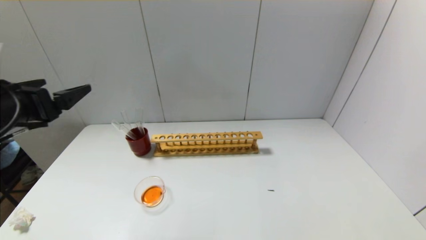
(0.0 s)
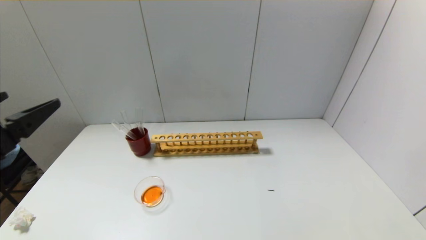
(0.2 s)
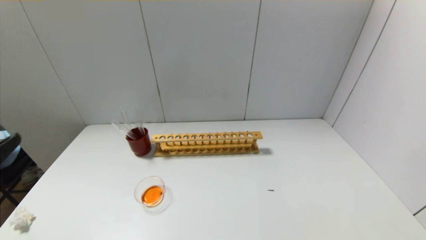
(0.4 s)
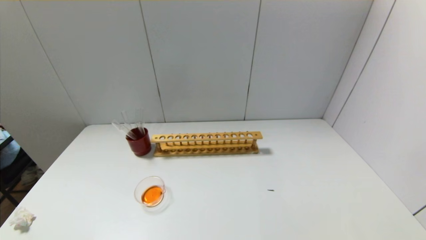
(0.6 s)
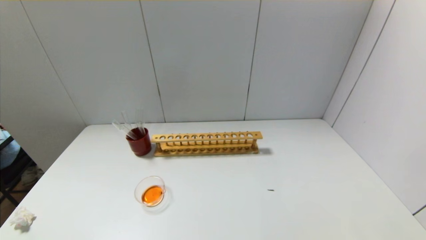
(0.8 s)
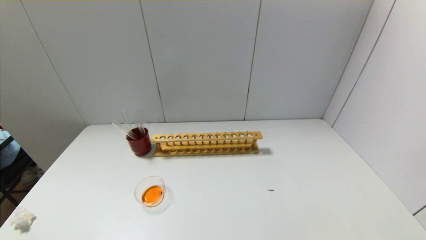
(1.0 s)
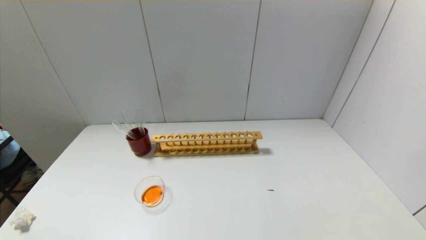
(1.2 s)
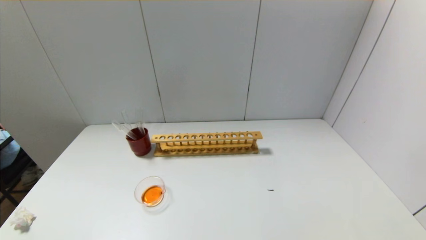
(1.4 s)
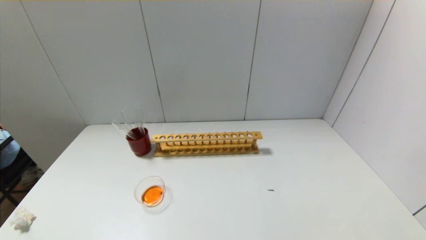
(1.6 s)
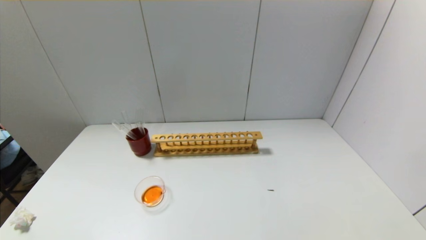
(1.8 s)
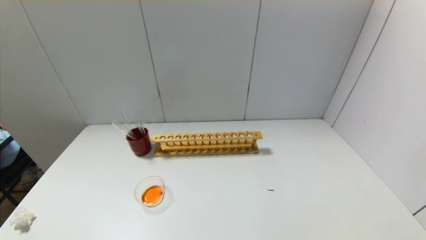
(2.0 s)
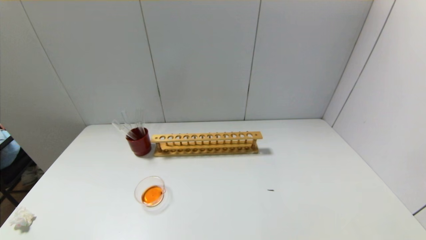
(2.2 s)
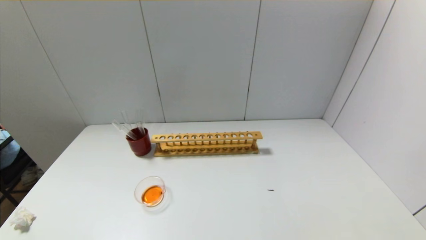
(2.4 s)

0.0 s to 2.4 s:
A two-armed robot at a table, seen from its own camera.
0.0 to 1.2 s: The left gripper travels backward and downward by some 30 cm.

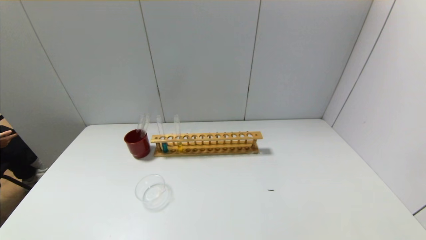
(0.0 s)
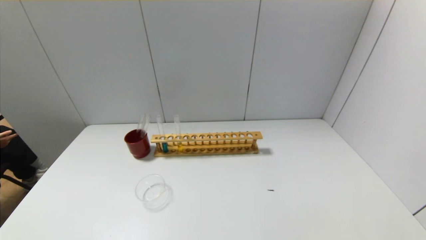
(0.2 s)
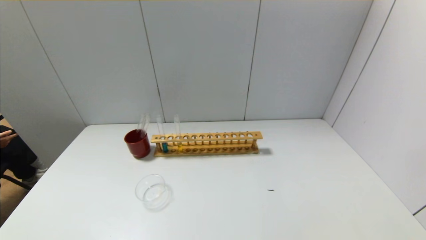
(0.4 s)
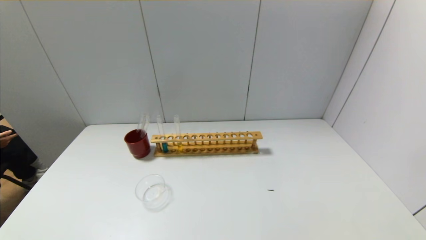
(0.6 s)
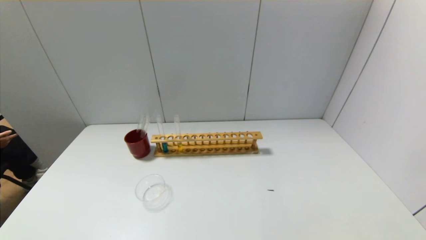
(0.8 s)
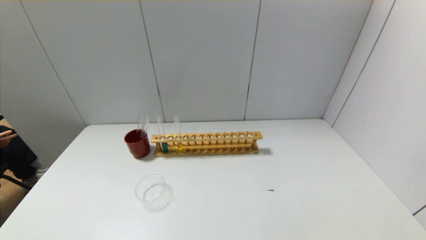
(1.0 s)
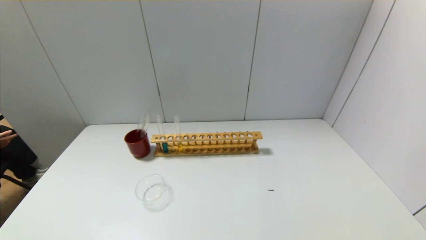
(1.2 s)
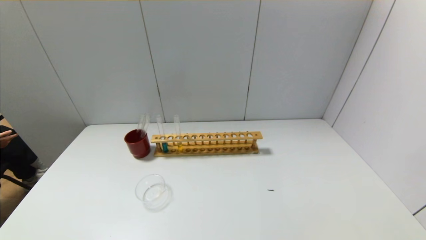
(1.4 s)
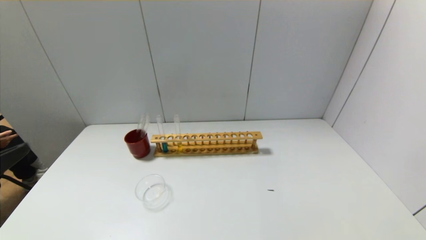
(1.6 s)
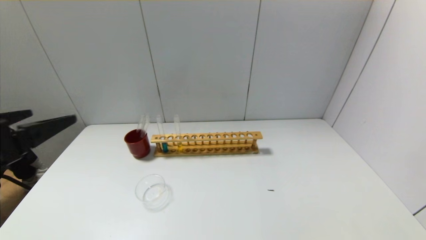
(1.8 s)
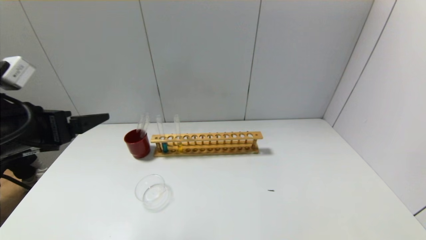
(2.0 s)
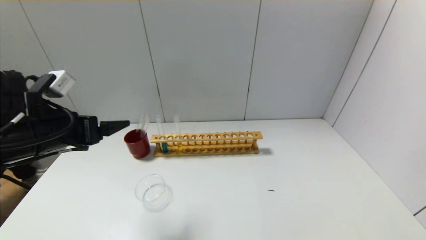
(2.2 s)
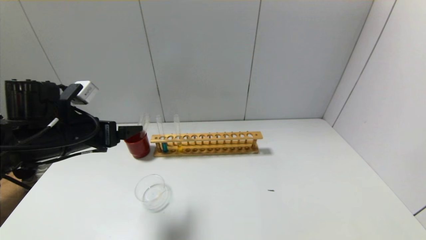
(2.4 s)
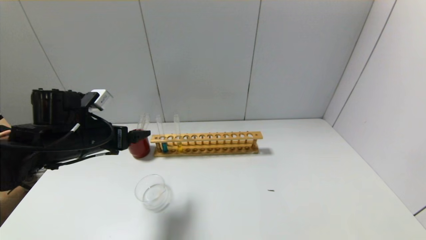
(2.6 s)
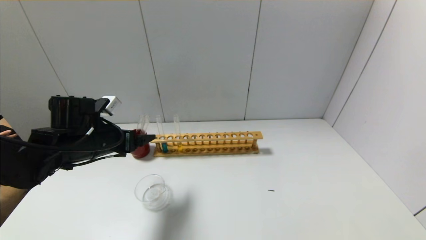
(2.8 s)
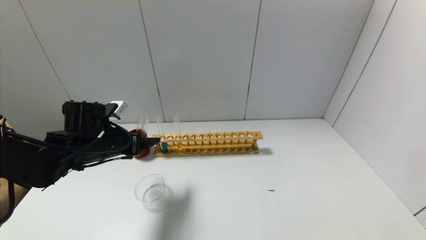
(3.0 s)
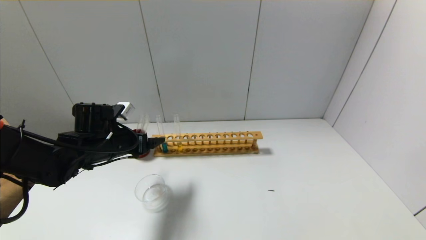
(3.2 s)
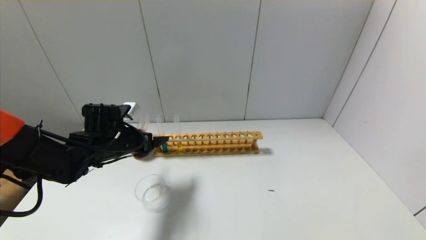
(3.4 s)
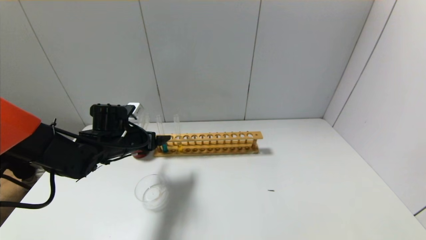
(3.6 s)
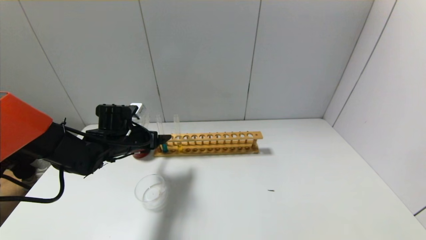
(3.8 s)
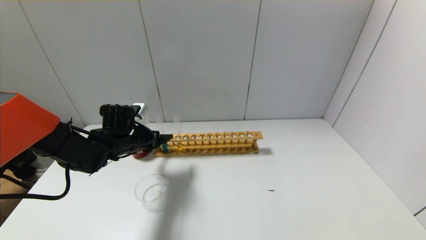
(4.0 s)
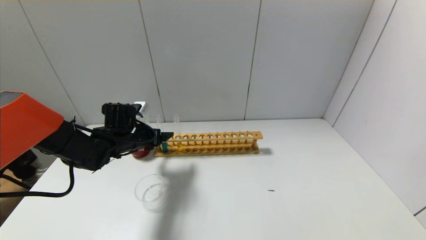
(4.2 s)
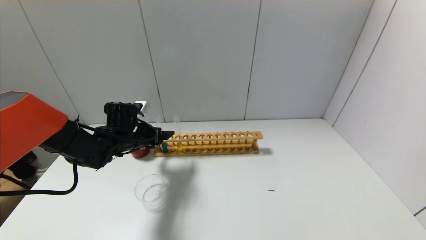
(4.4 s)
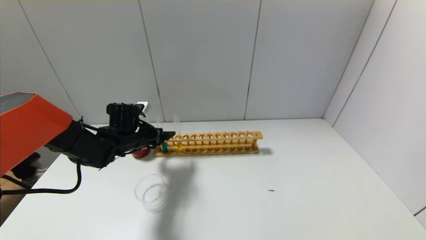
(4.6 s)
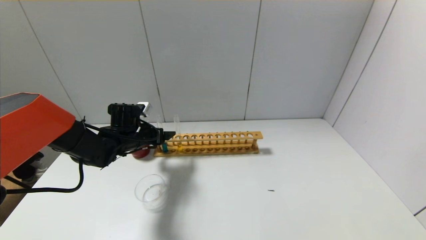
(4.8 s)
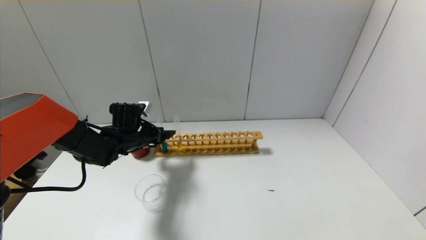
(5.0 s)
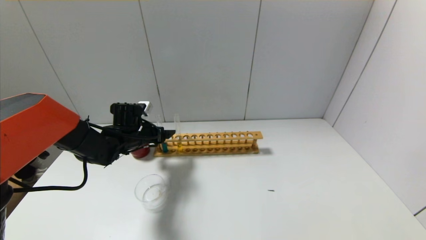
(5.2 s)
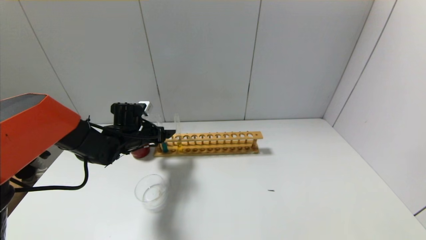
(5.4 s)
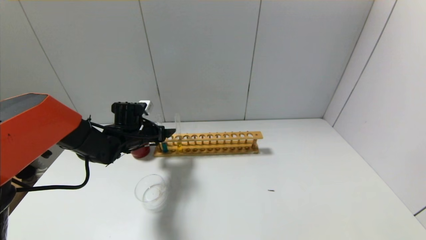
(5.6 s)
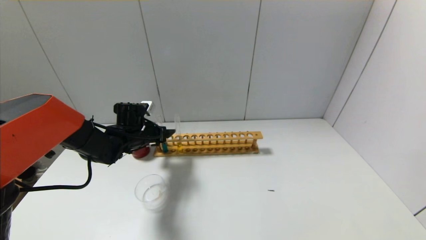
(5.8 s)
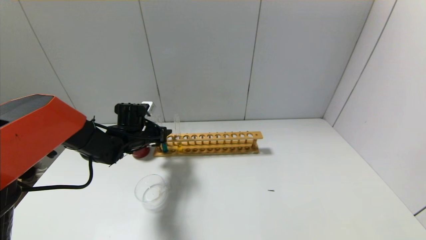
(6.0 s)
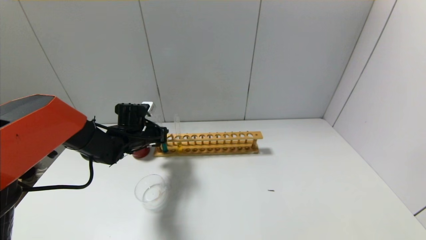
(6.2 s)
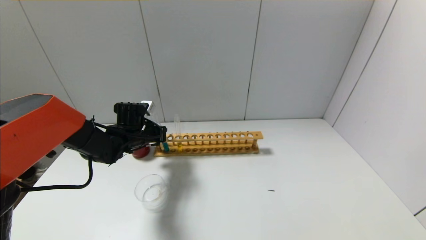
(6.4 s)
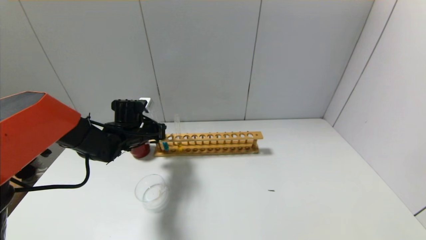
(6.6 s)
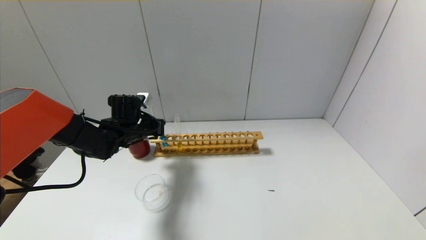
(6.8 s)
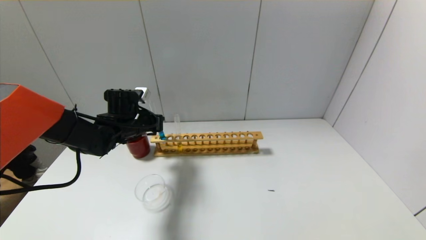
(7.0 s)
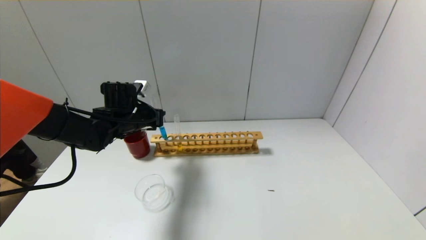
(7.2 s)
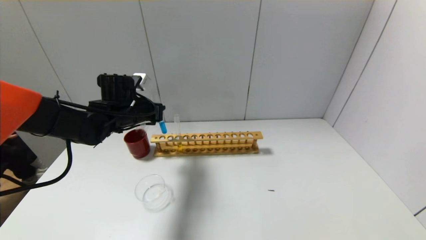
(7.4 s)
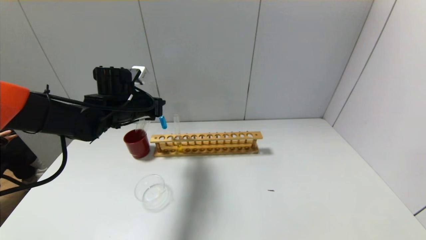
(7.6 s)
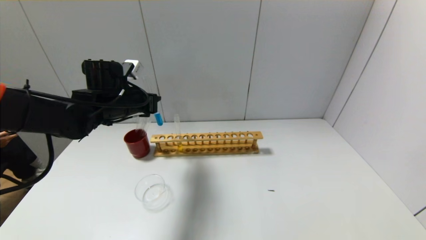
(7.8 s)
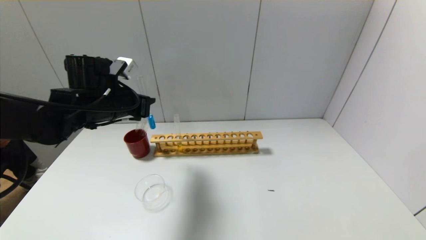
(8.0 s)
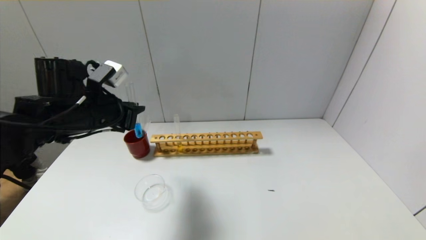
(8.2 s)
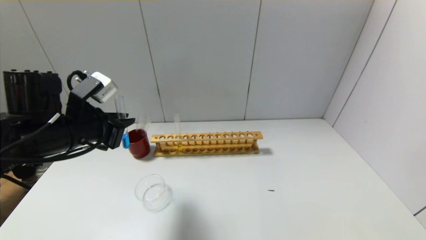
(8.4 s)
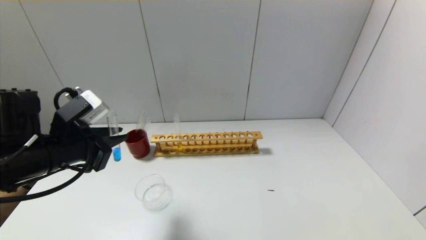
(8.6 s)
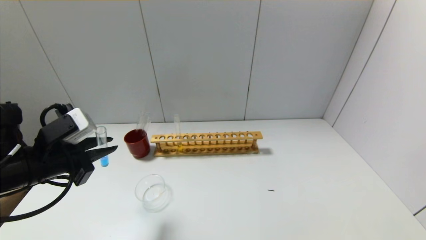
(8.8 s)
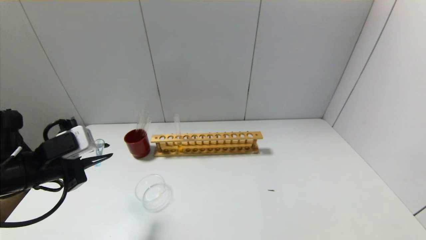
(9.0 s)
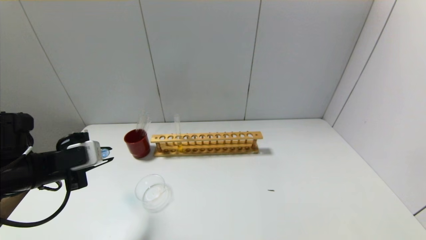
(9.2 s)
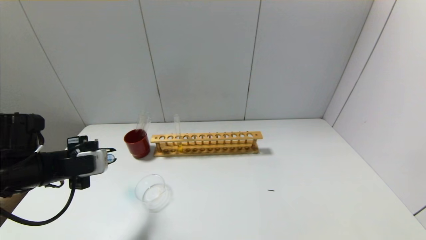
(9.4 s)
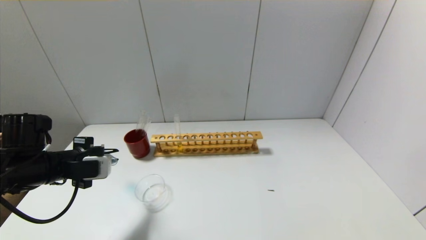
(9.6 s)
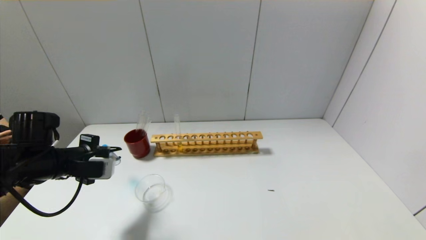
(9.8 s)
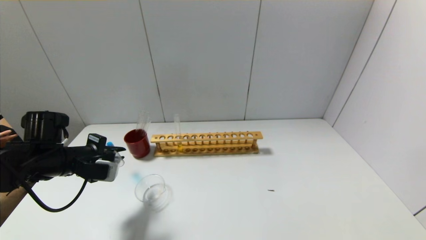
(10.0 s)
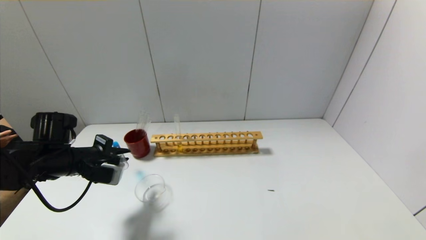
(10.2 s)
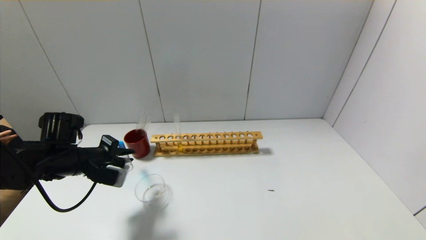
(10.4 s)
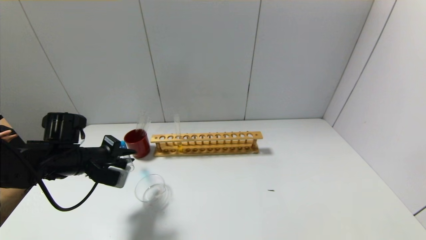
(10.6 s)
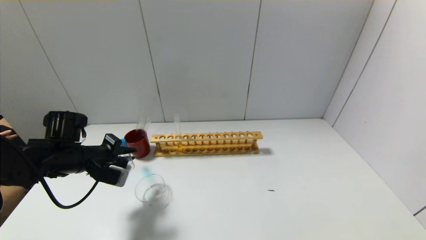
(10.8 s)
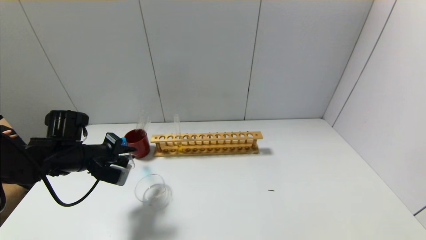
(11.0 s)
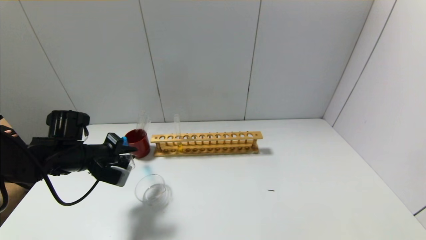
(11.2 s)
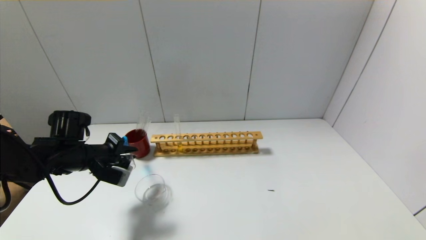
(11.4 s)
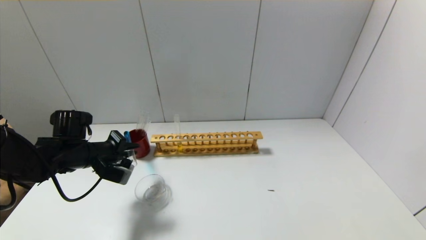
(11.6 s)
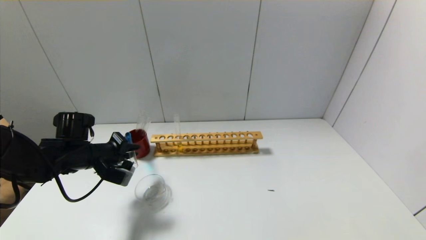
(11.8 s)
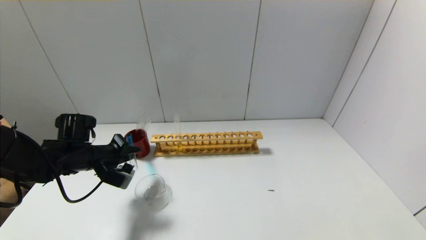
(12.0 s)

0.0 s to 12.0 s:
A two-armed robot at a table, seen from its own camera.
Step, 0.0 to 6.2 s: Grasp the blue reagent with the left gripper.
1.6 to 3.0 s: The left gripper moves forward and downward, approximately 25 cm.
3.0 to 4.4 s: The left gripper goes about 10 cm forward.
4.4 to 6.0 s: The left gripper closes its fingers.
6.0 to 7.6 s: The left gripper travels upward by roughly 10 cm, and closes up.
7.6 to 9.0 s: The left gripper heads backward and to the left, covering approximately 20 cm.
9.0 to 10.4 s: The left gripper moves forward and downward, some 10 cm.
10.4 to 12.0 s: The grippers move only a little.

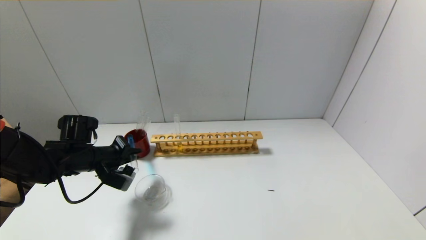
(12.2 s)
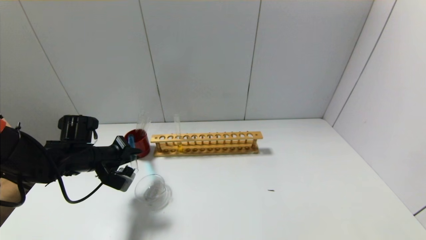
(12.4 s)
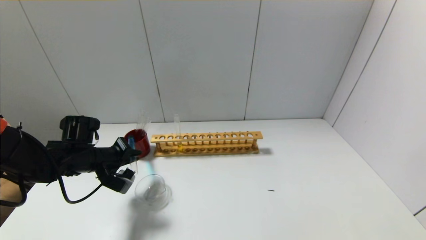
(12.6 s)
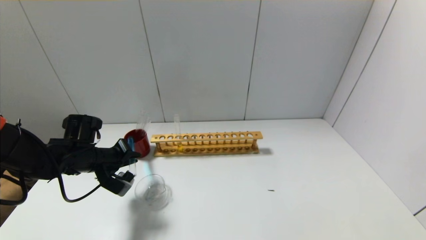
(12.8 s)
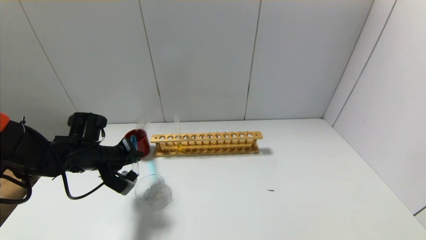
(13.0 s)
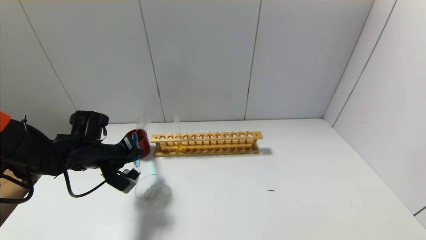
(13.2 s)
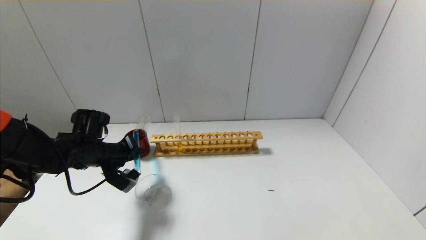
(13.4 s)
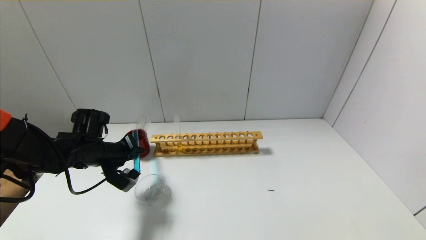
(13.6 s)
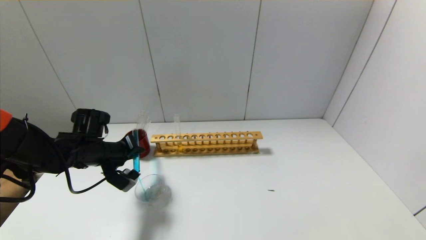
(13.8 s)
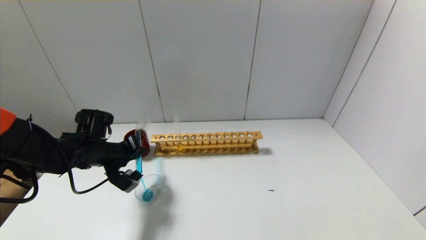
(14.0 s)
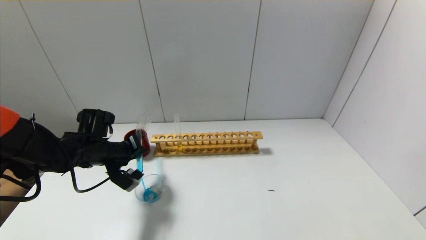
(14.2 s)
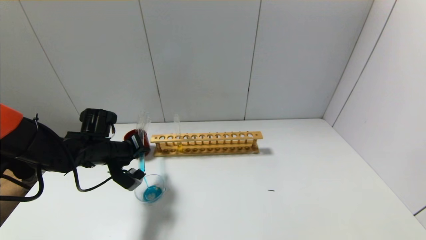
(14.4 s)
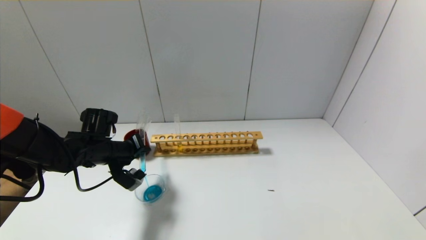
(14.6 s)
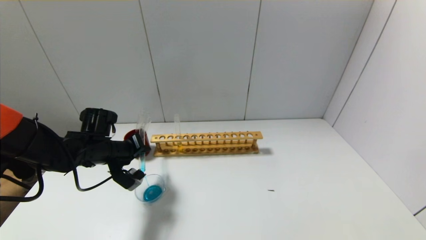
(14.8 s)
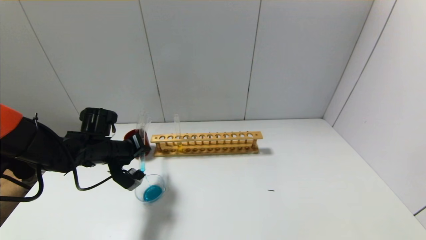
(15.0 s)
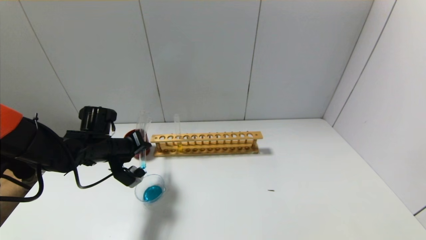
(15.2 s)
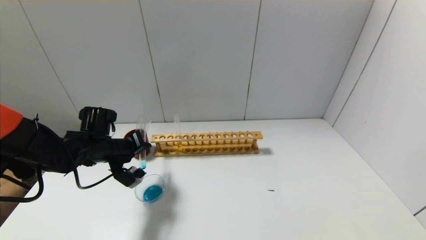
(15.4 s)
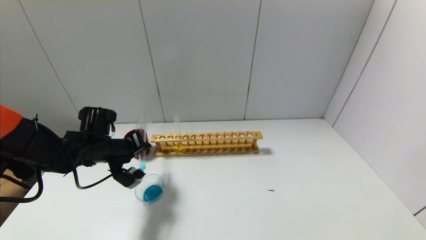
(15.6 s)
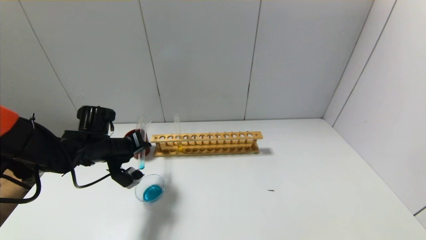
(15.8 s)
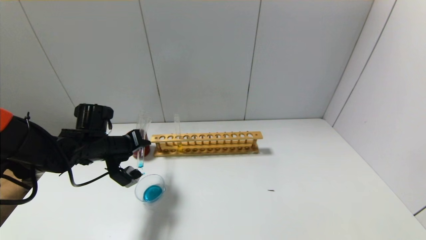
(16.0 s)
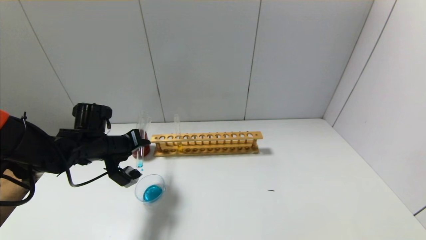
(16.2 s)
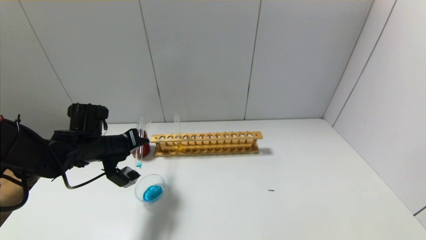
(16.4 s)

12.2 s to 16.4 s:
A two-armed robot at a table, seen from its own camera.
12.2 to 15.0 s: The grippers stay close to where they were, moving slightly.
15.0 to 16.4 s: The grippers stay close to where they were, moving slightly.
